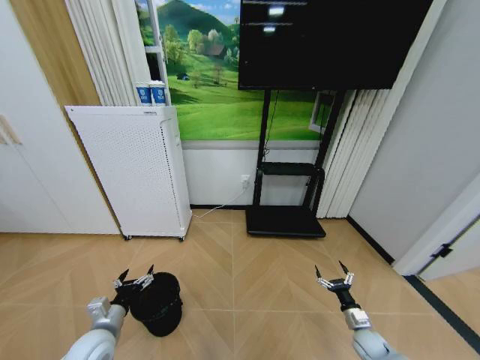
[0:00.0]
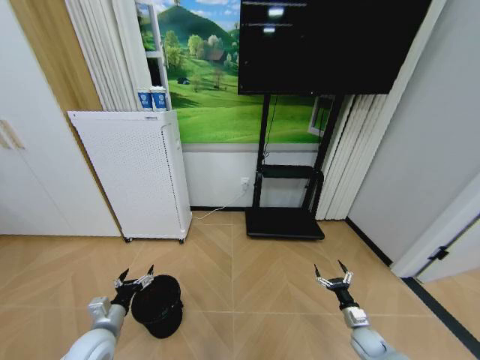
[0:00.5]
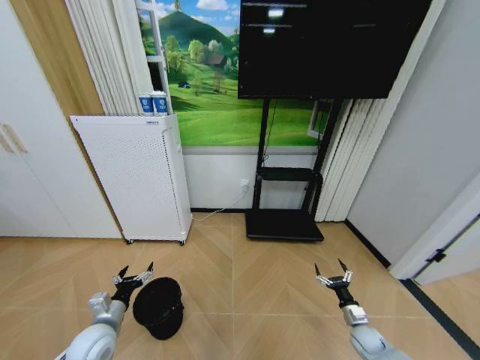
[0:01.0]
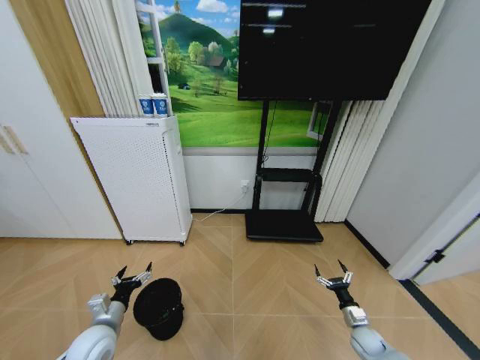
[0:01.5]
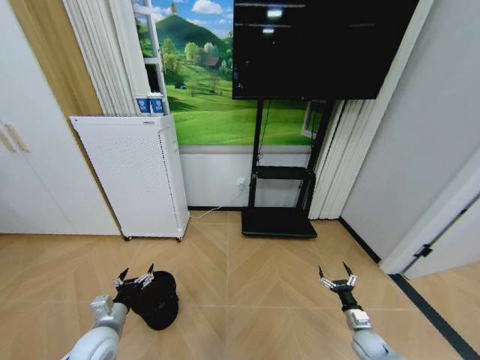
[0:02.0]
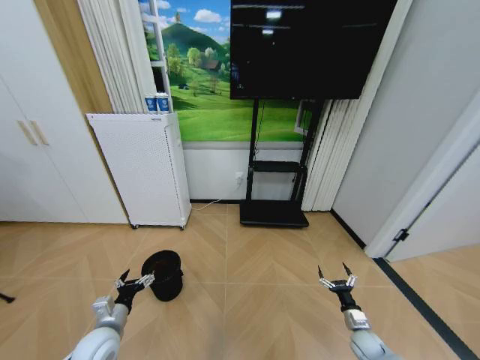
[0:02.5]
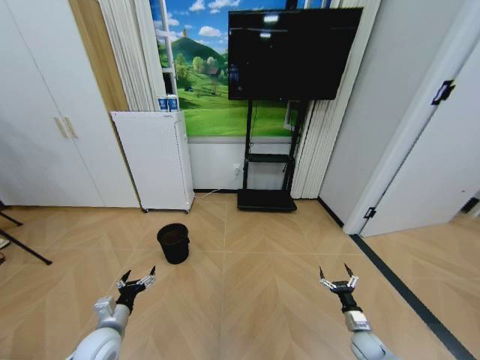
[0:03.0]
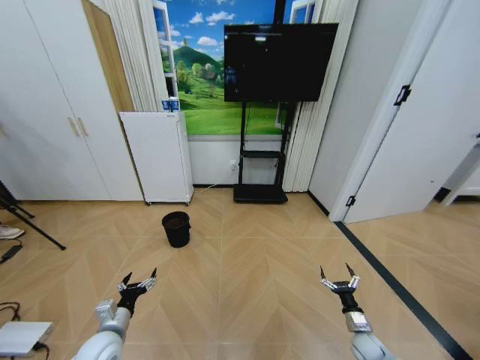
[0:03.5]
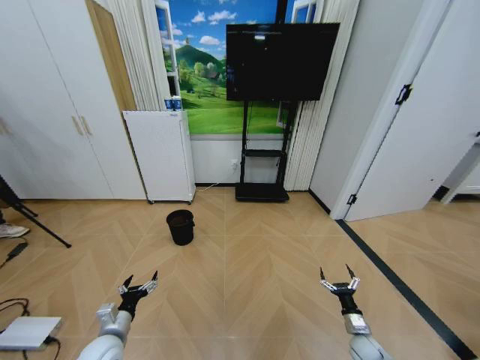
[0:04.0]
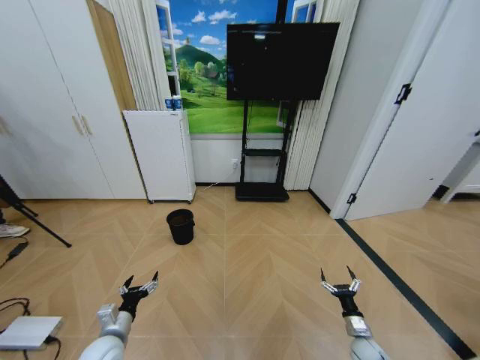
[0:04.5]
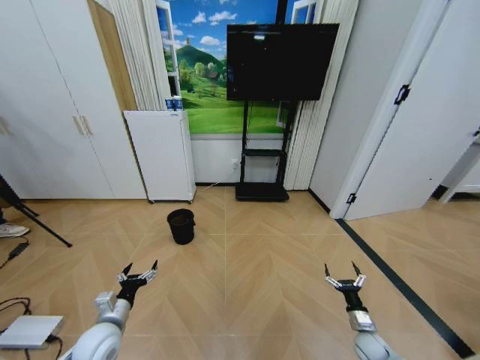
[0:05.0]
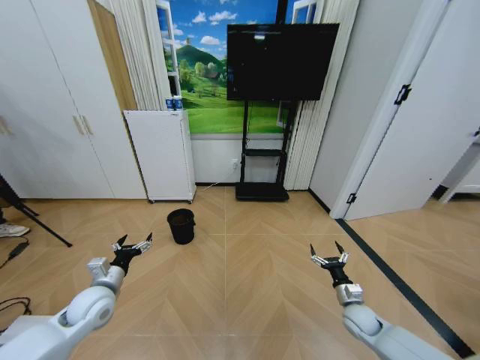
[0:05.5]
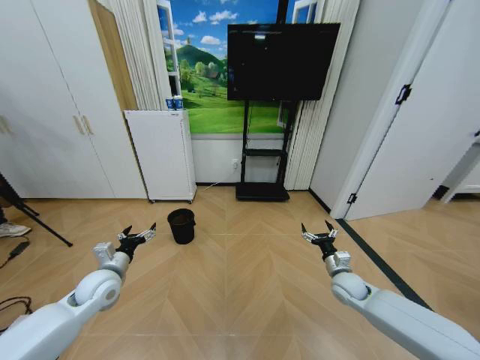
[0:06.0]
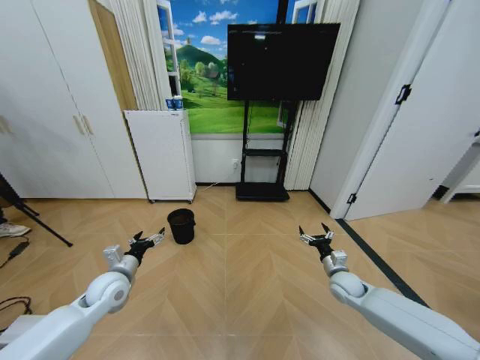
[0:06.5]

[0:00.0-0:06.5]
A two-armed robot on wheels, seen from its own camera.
Task of the whole recording: Pick up the trash bin and place the garbage on the floor into it.
0:00.0 to 0:02.0: The grippers stay close to where they were, moving slightly.
0:04.5 to 0:06.5: The left gripper is displaced forward and upward by roughly 15 cm. The right gripper moves upward and forward, roughly 20 cm.
